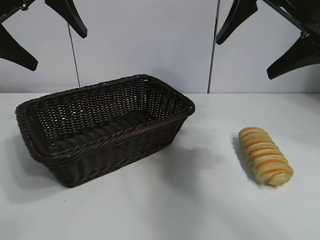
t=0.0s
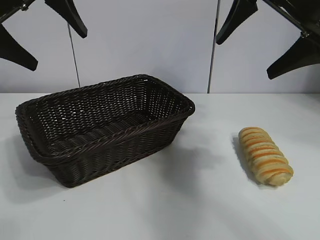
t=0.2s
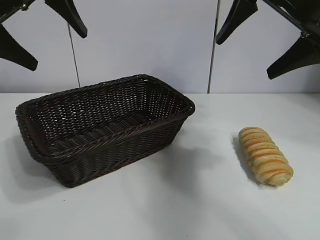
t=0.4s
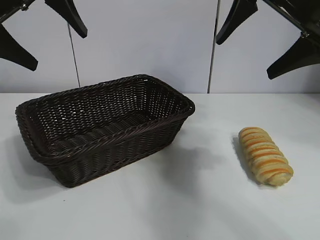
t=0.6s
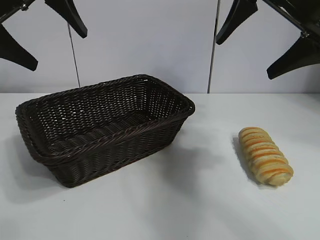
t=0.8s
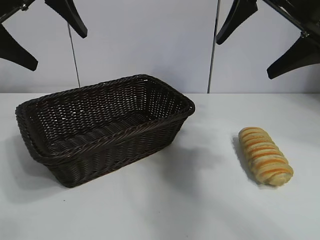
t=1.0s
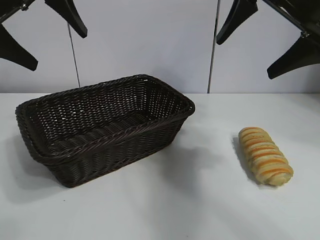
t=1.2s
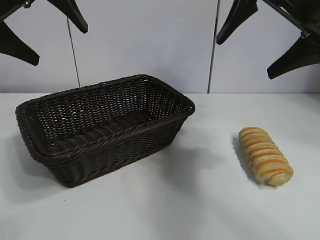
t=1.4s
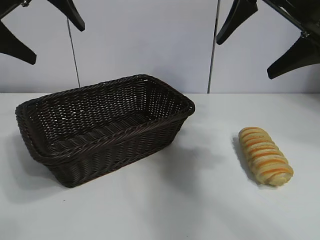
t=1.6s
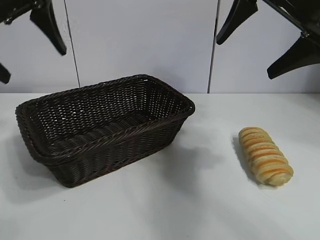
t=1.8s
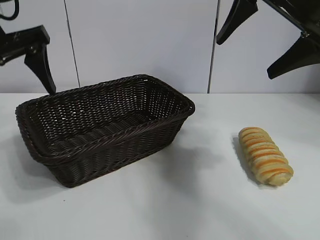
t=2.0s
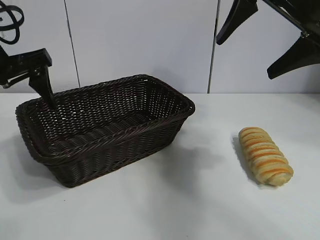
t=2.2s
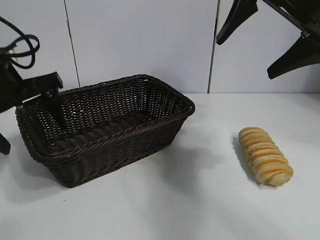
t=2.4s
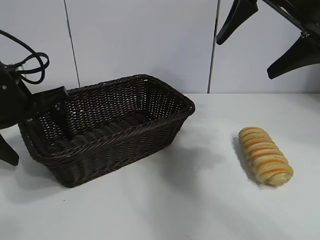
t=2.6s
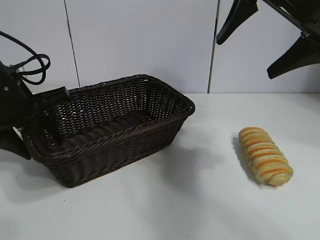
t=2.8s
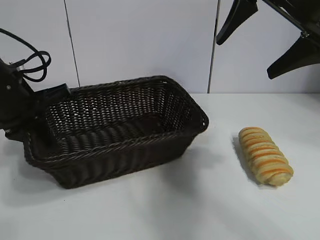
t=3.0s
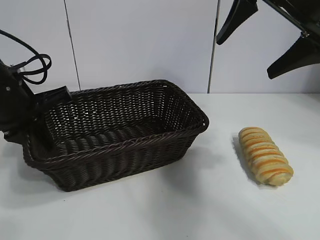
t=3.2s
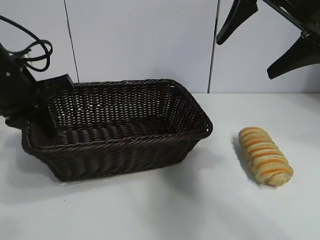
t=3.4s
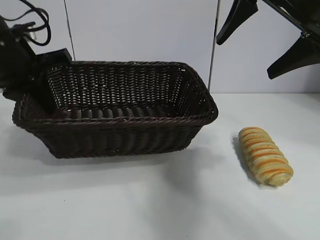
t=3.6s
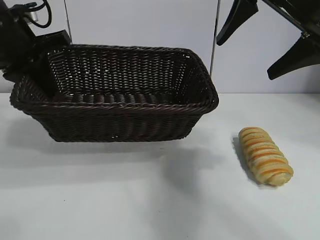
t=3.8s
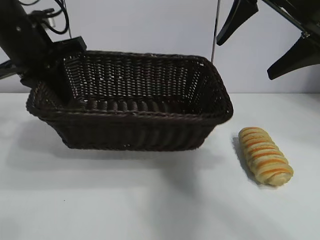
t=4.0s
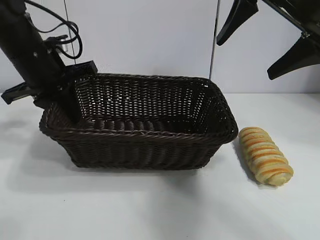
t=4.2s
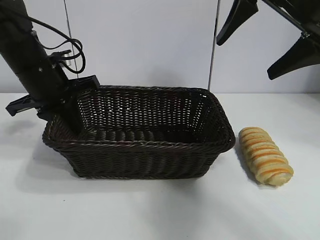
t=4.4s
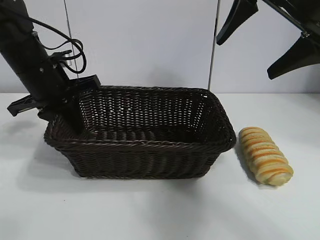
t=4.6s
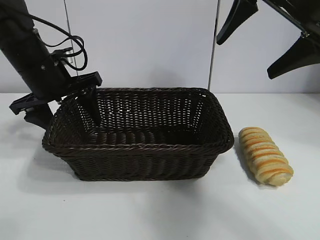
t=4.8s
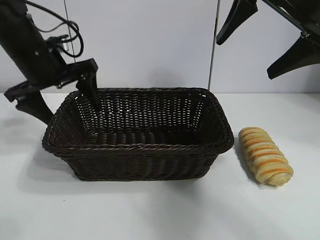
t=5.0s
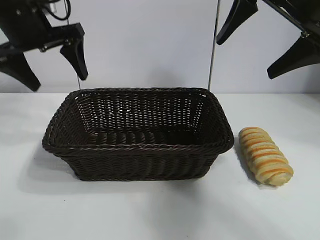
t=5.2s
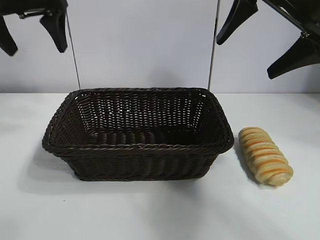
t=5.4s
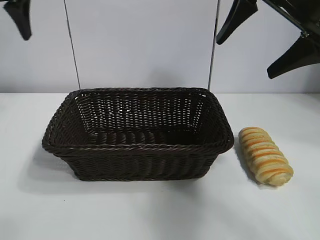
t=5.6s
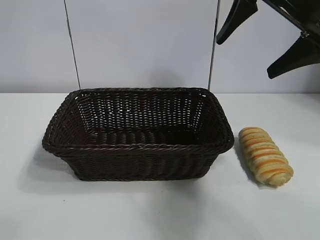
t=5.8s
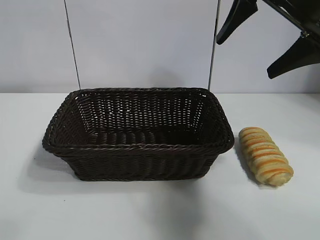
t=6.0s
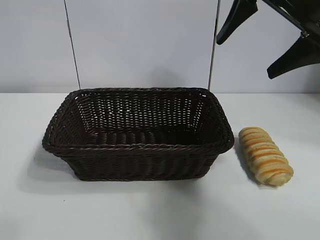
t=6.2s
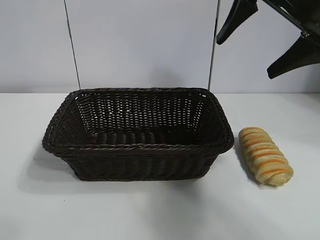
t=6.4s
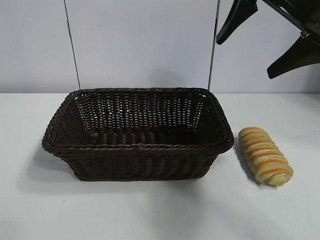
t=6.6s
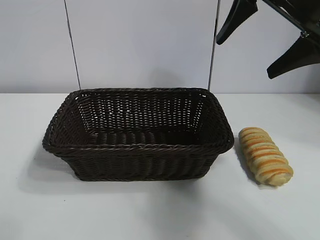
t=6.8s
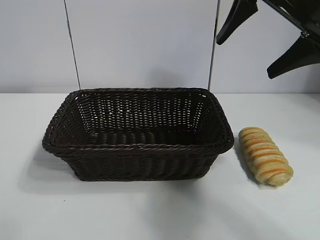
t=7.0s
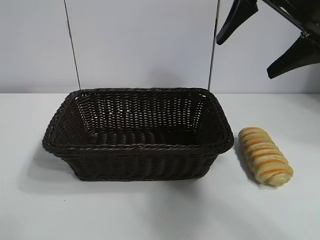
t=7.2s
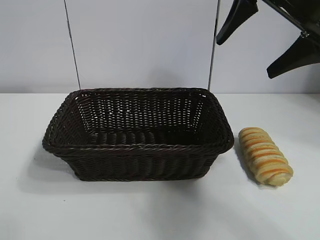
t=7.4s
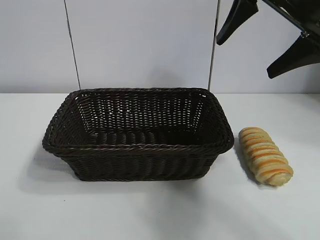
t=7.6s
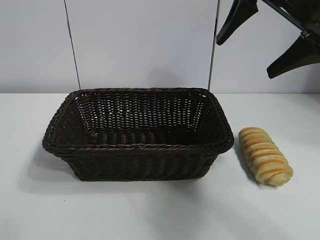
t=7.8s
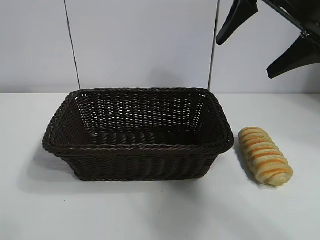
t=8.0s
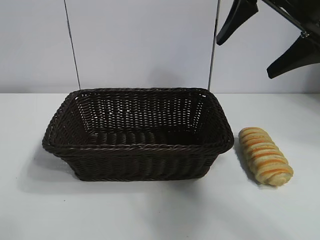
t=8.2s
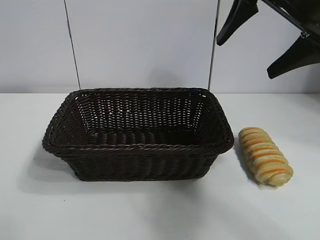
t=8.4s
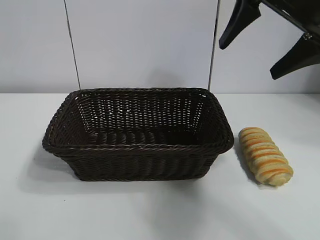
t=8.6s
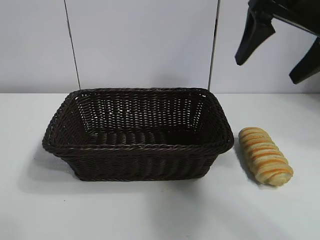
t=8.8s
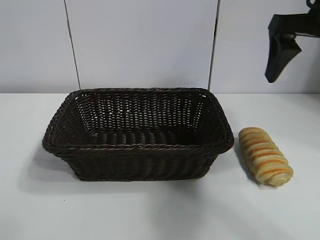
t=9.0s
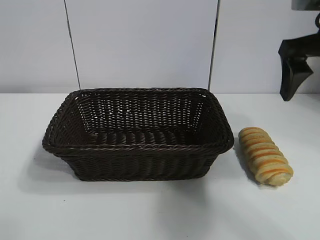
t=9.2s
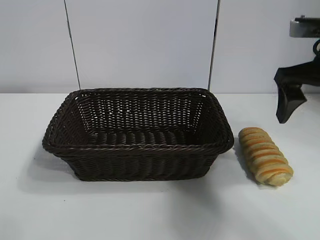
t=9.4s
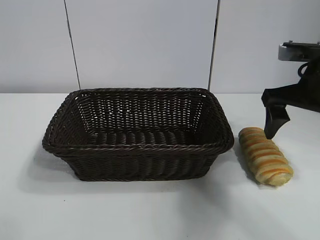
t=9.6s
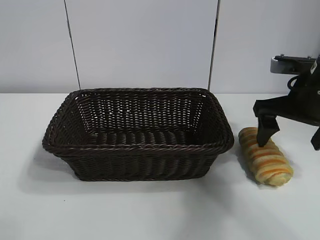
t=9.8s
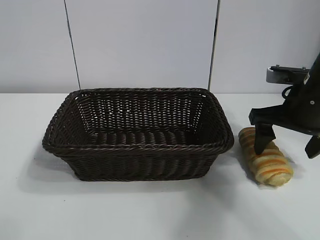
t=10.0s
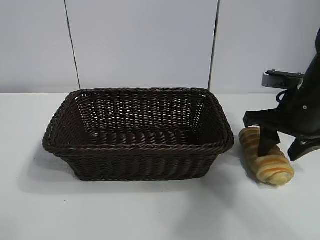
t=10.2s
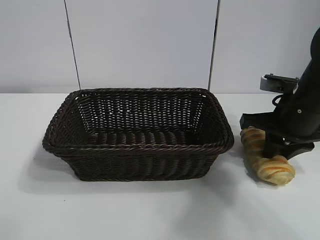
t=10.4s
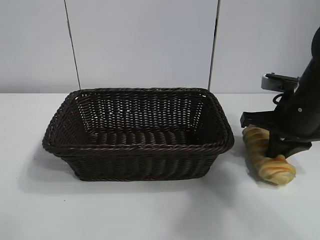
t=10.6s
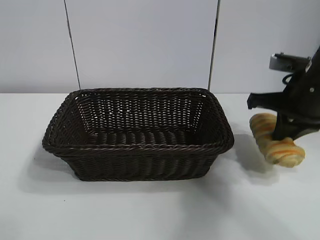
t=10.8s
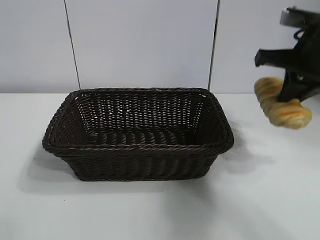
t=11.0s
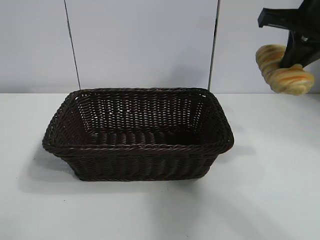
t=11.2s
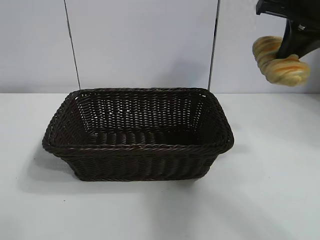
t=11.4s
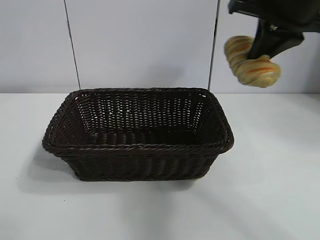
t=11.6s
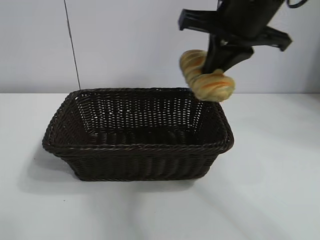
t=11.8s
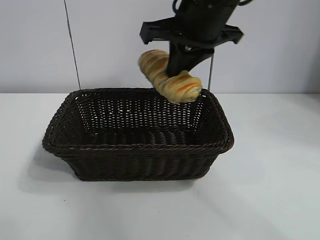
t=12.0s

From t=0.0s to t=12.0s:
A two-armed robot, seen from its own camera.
Task of the whole recording: pick up the long bread and put it into the basket.
Step, from t=1.4s to t=3.0s: Grasp the basket with the left gripper.
Step, from t=3.4s to t=4.8s: Place the basket in the center of the table with the left gripper.
Step, from t=5.0s to t=10.4s: Grasp the long bread with right gripper.
